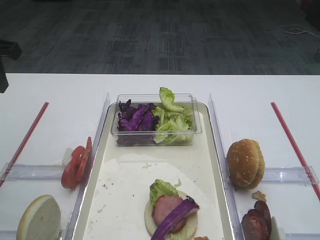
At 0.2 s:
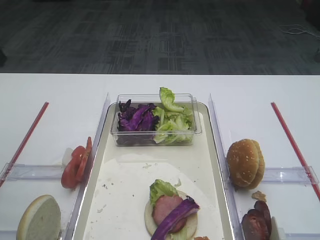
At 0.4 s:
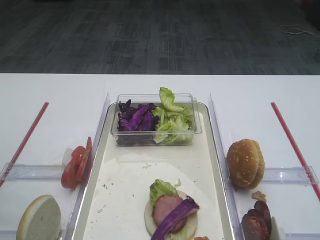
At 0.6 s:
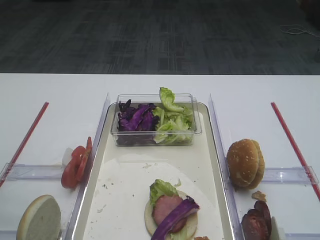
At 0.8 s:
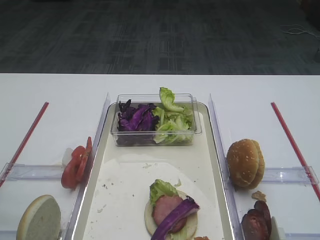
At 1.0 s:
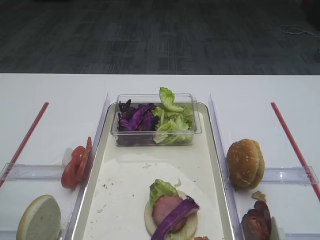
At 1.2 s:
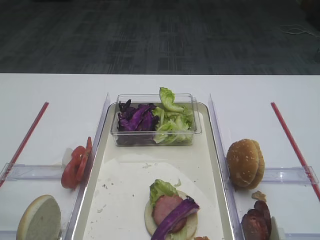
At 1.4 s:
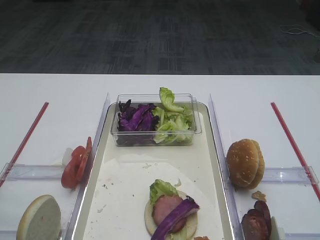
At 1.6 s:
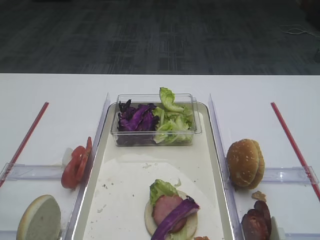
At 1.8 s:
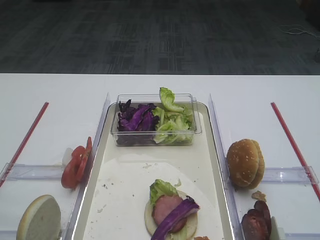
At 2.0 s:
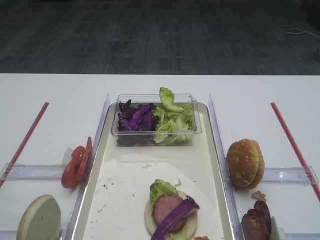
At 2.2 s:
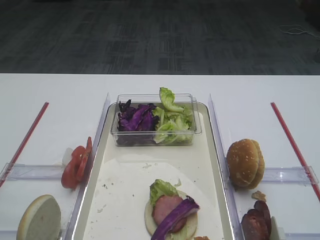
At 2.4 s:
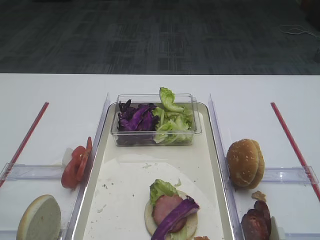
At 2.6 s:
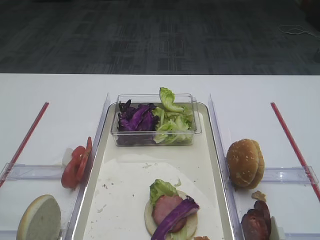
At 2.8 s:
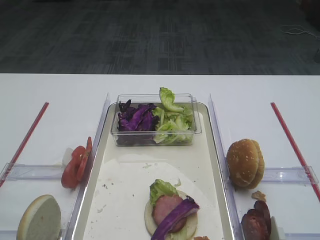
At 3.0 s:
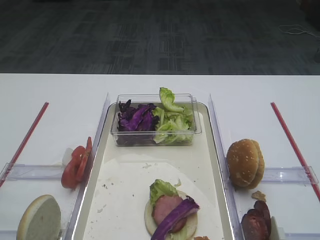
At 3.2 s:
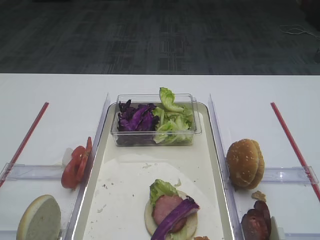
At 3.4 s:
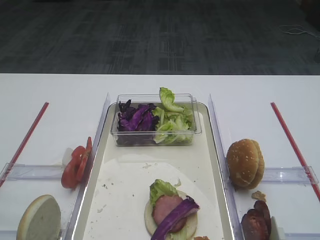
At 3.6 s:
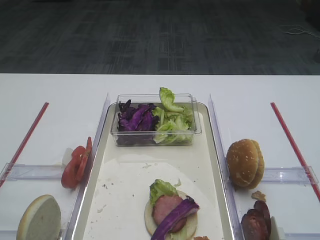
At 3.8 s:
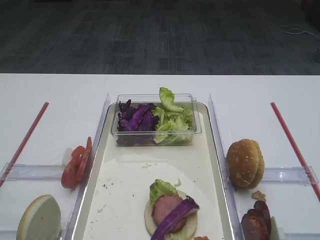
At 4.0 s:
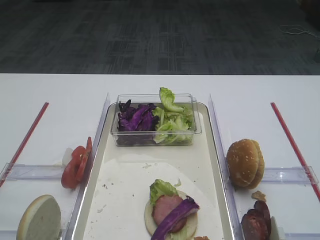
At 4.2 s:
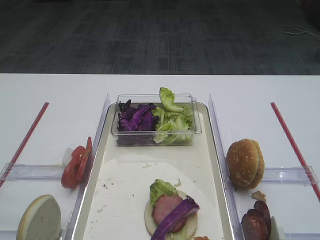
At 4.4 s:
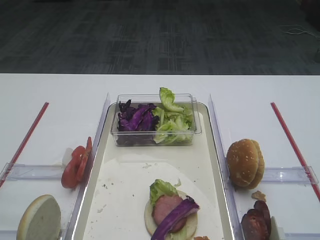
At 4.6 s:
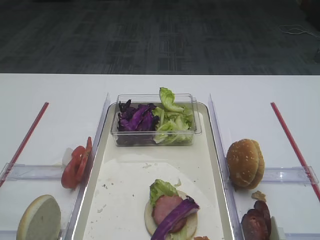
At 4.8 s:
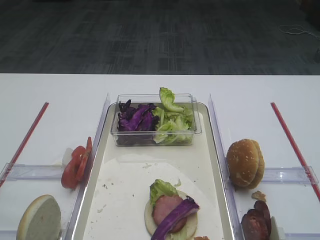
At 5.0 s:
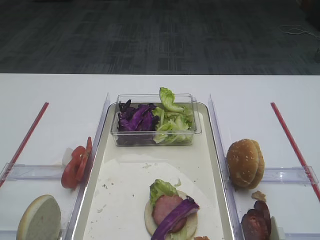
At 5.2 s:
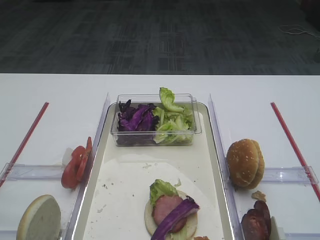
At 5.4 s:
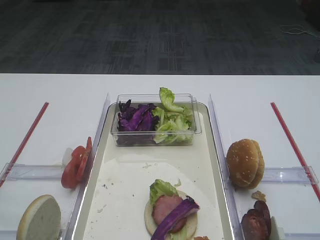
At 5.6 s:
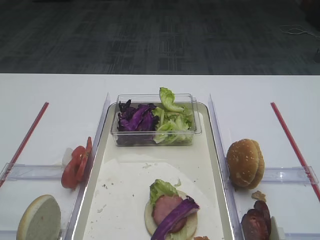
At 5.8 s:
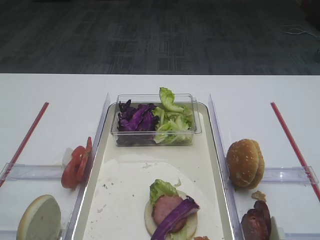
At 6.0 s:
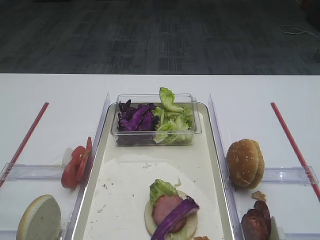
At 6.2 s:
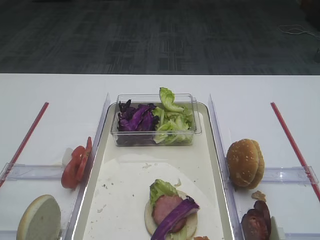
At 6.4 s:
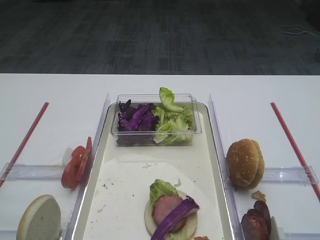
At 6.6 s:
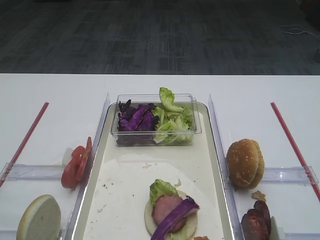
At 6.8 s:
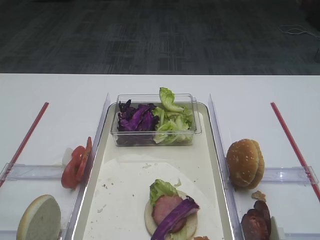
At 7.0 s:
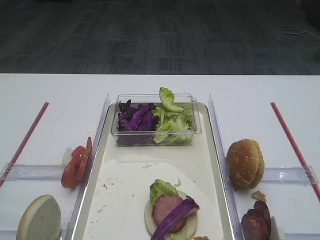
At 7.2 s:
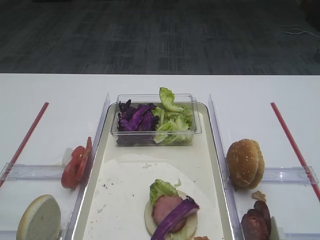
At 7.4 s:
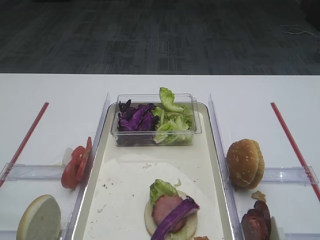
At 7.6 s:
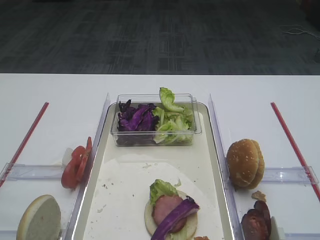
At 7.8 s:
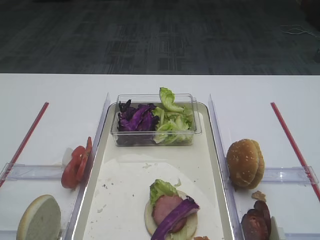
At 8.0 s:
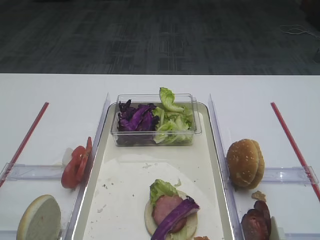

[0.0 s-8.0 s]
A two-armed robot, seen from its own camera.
3.2 to 4.8 s: The two grippers keep their place.
6.4 to 8.0 s: Neither gripper changes place.

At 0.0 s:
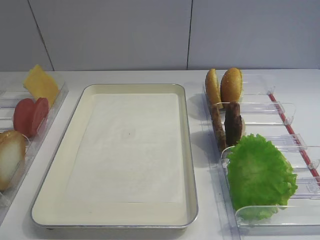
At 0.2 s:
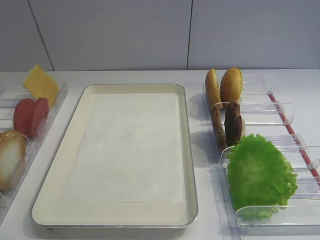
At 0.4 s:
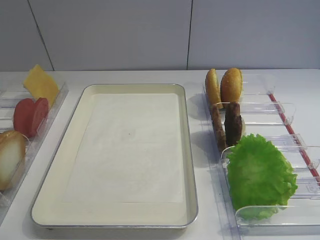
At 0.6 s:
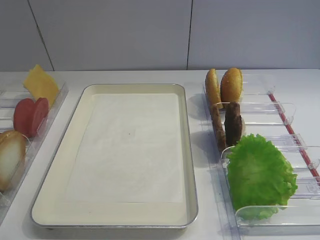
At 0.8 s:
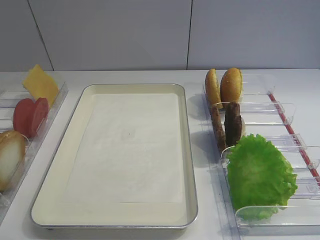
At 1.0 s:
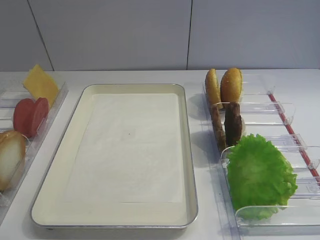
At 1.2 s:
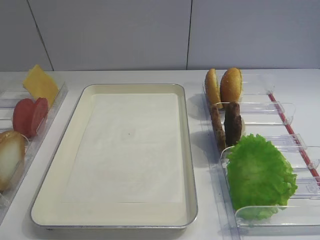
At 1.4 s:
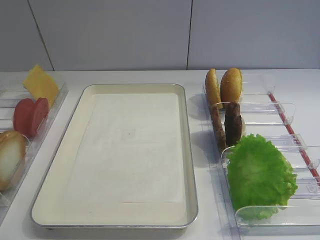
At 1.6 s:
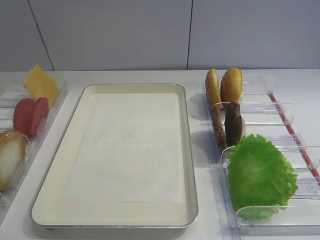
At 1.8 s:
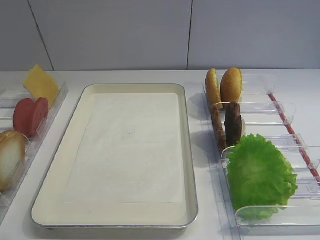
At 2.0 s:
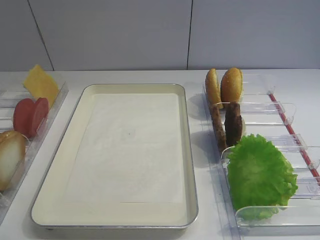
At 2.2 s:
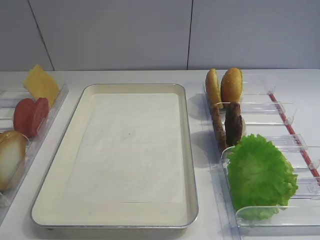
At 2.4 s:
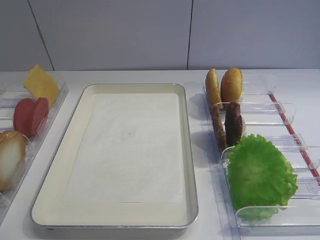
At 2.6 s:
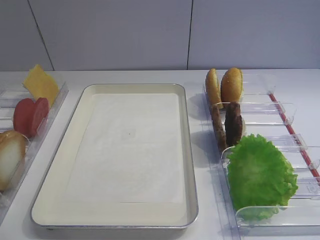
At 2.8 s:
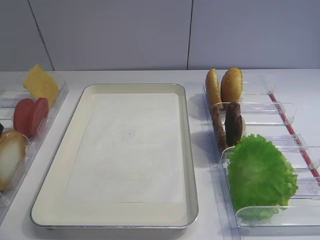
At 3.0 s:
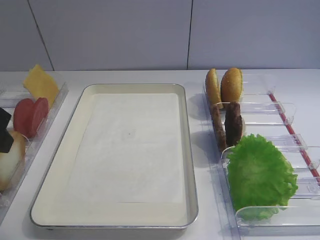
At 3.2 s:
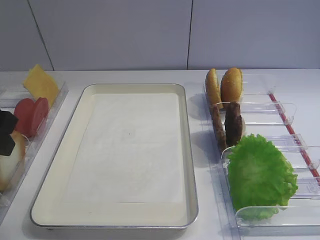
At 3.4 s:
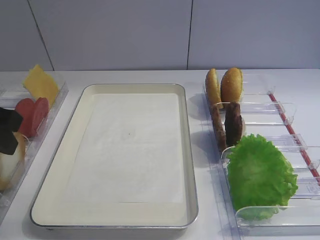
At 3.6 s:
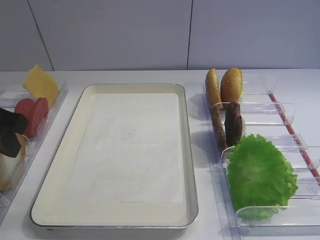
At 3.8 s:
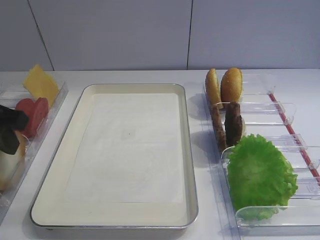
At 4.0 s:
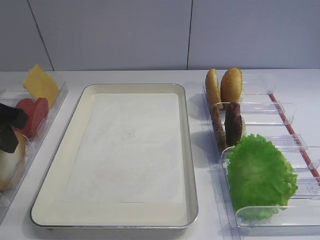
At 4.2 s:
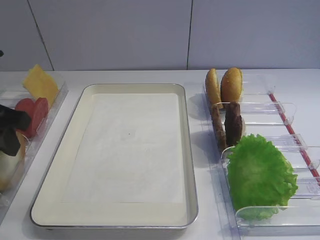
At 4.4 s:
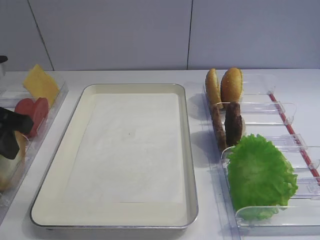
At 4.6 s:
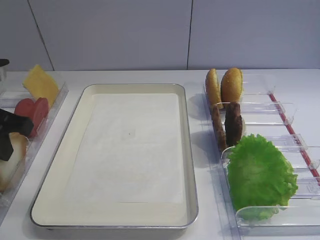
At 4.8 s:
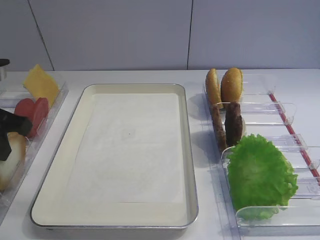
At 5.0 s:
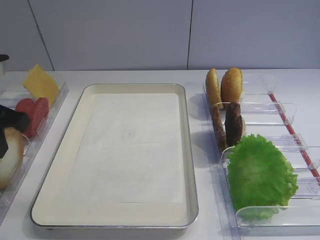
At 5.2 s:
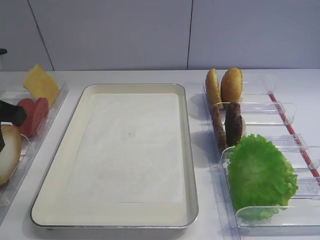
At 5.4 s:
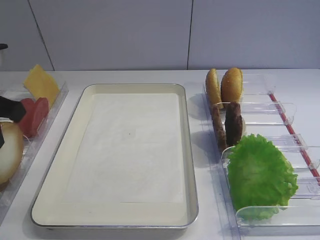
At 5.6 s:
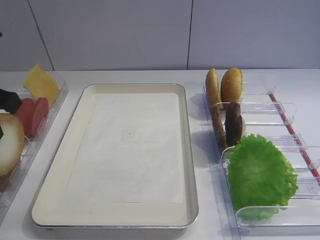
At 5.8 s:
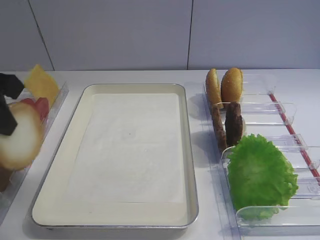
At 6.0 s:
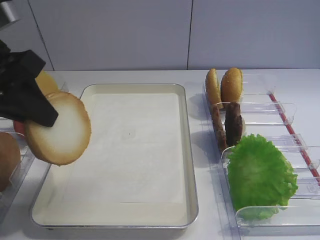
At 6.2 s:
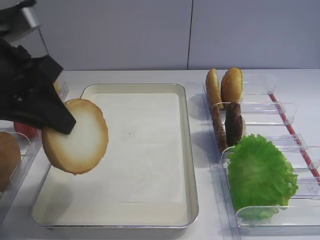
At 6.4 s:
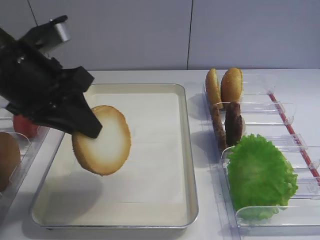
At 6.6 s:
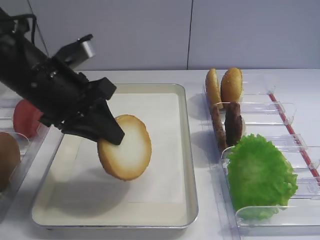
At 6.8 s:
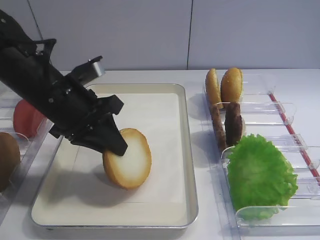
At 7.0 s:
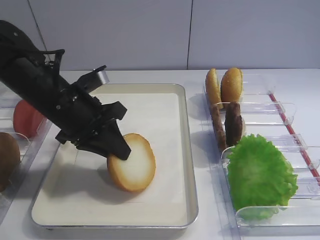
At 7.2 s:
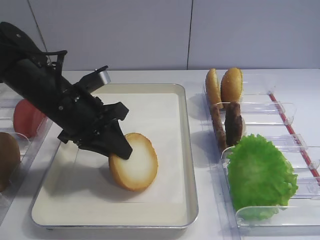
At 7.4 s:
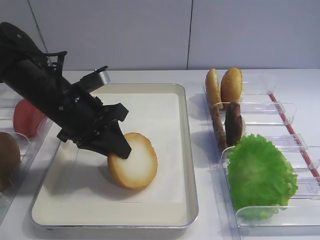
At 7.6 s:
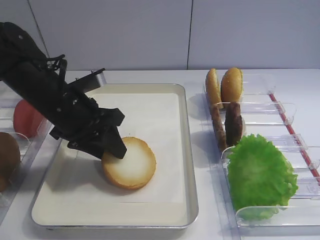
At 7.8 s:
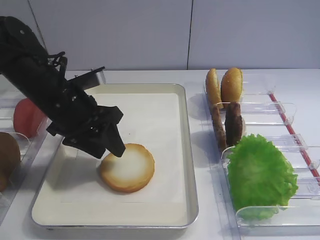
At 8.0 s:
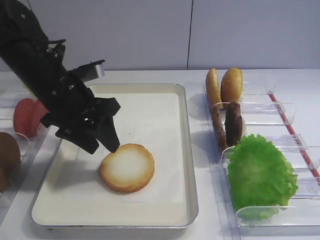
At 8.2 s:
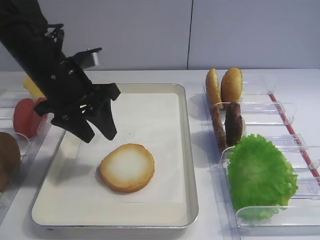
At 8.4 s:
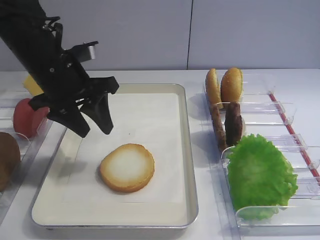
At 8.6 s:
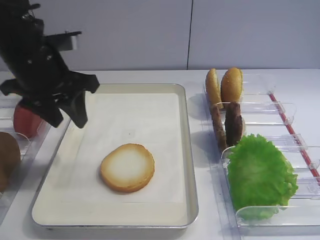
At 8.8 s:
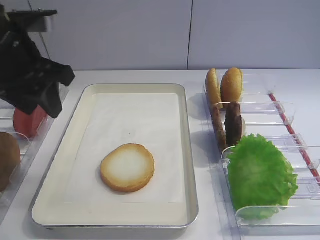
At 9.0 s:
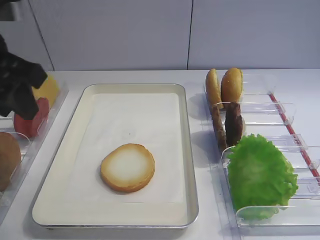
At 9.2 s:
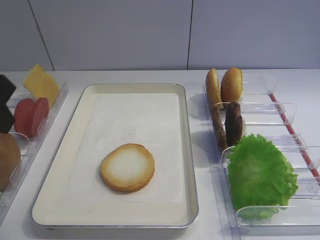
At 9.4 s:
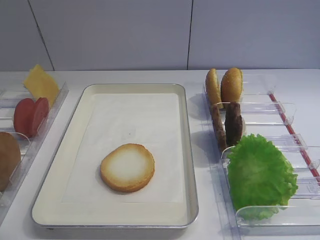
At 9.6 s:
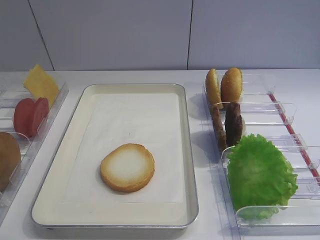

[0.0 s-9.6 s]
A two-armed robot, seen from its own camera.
Step, 0.0 to 5.6 s: Pick up the bread slice with the left gripper.
Step, 5.8 to 8.0 s: Place the bread slice on the tray with the left gripper.
1.6 to 3.2 s: The left gripper shifts roughly 20 cm forward.
4.8 to 6.4 s: The left gripper heads to the right, covering some 10 cm.
6.4 to 8.0 s: The left gripper heads downward and forward, covering about 10 cm, and opens.
8.0 to 9.6 s: The left gripper goes about 25 cm backward, upward and to the left, and closes its fingers.

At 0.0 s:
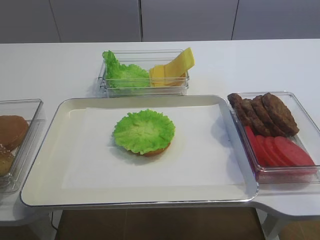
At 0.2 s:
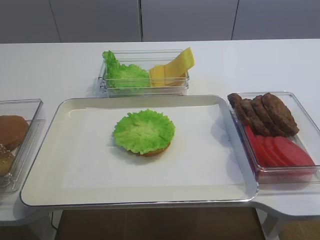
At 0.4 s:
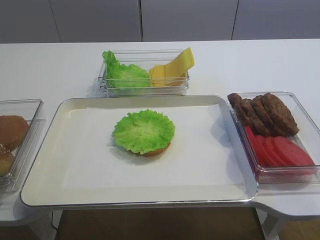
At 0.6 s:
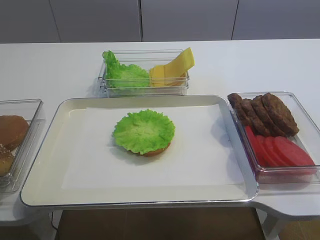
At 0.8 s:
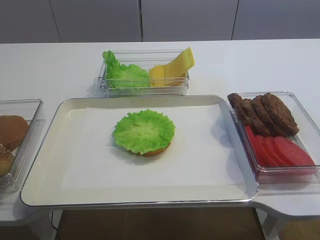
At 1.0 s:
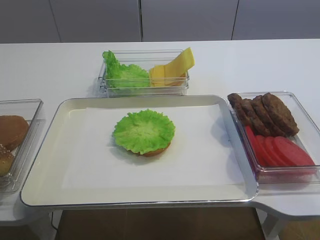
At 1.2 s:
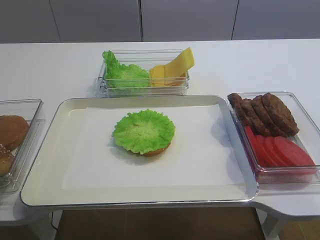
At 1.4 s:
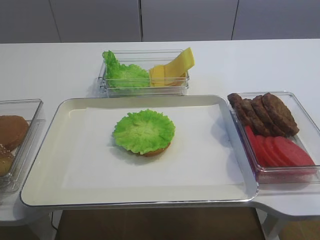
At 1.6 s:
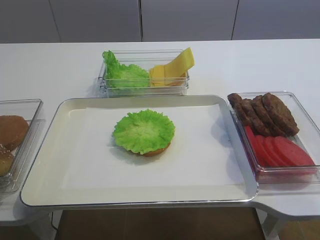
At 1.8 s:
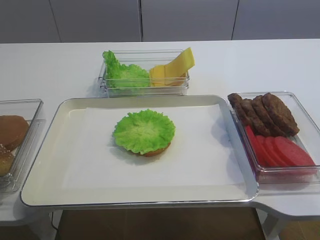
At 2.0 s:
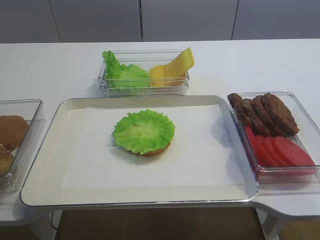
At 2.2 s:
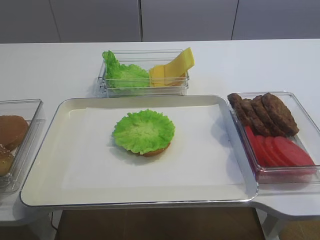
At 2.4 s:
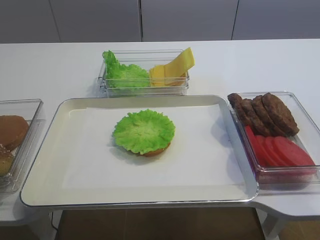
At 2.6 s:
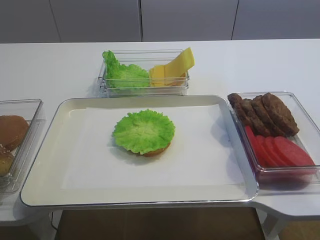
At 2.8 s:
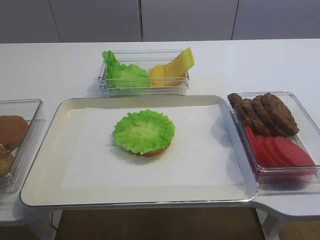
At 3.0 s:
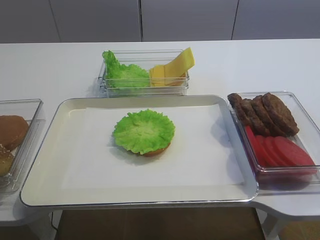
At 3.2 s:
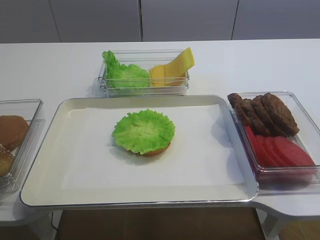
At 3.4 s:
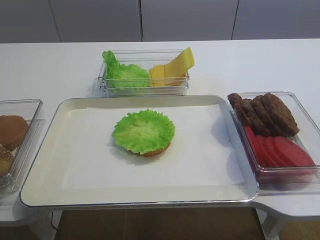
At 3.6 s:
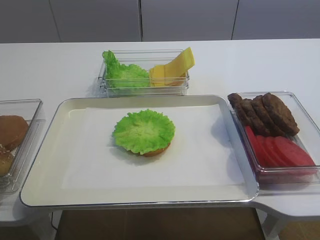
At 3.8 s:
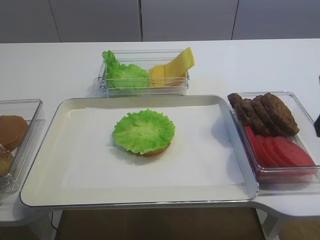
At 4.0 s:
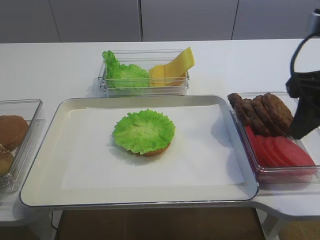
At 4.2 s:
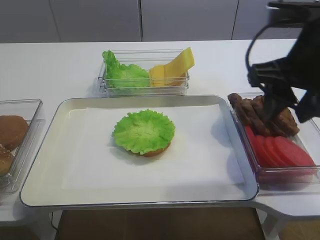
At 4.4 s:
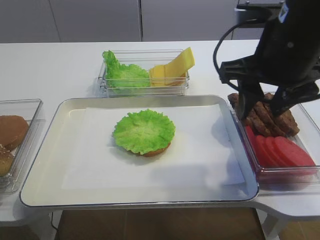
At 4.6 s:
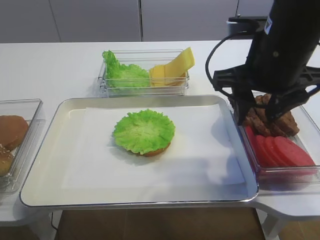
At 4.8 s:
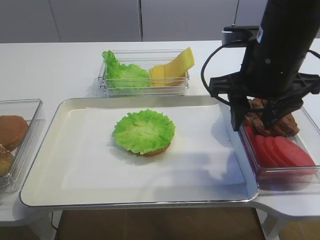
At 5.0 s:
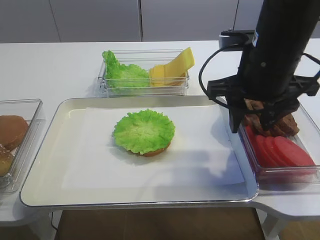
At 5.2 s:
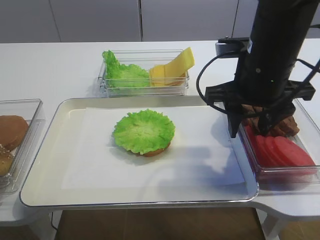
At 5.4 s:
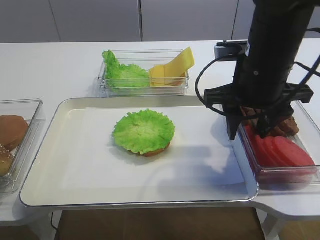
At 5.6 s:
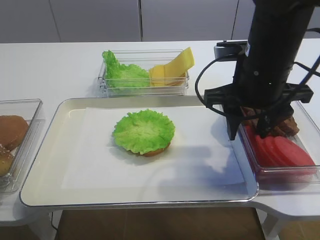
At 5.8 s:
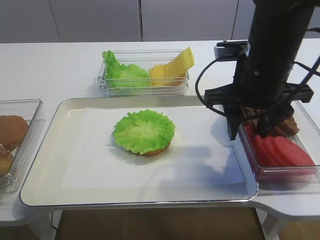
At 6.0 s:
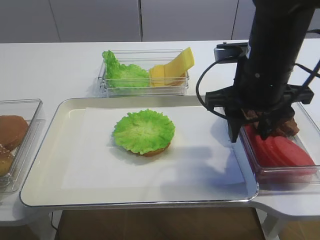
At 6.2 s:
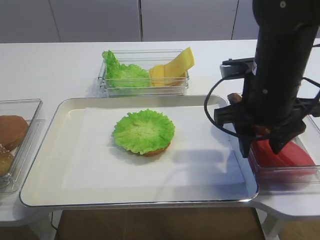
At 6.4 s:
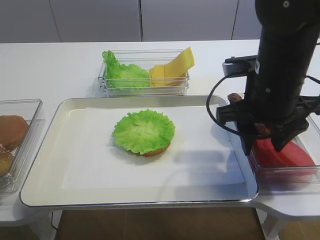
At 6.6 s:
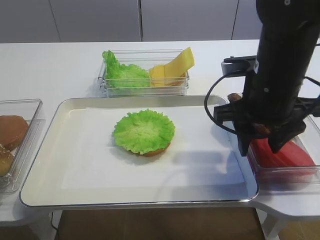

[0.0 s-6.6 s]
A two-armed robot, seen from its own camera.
1.6 to 3.2 s: The right gripper goes roughly 15 cm forward and upward.
3.2 to 5.0 s: The right gripper heads forward and to the left, covering approximately 20 cm.
5.0 to 6.6 s: The grippers move only a little.
